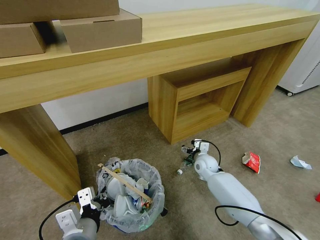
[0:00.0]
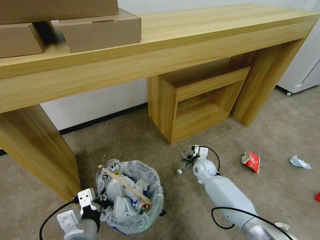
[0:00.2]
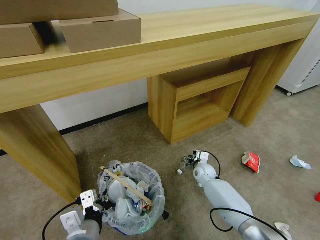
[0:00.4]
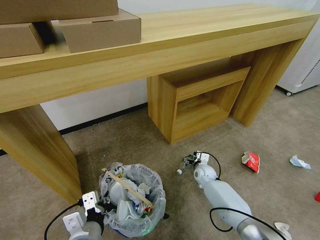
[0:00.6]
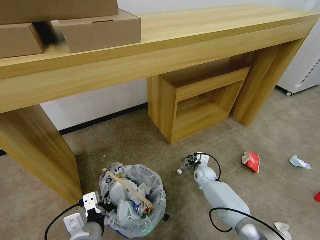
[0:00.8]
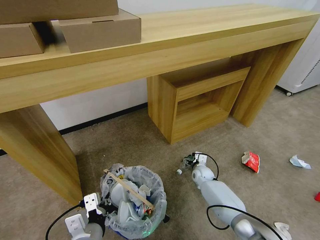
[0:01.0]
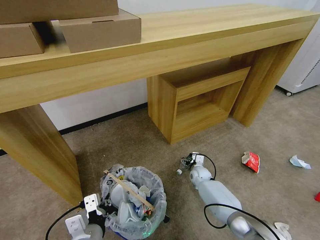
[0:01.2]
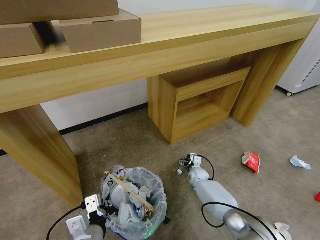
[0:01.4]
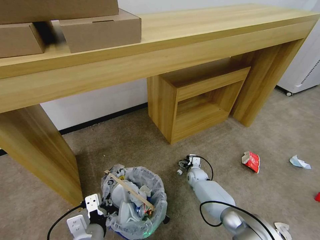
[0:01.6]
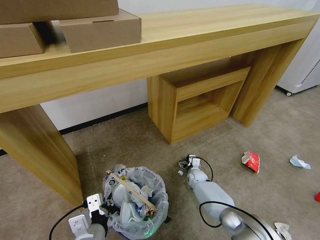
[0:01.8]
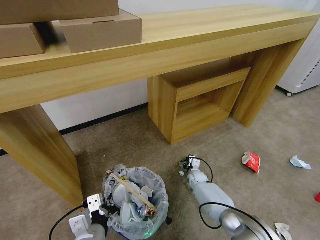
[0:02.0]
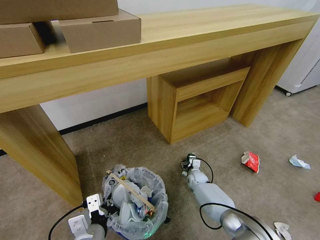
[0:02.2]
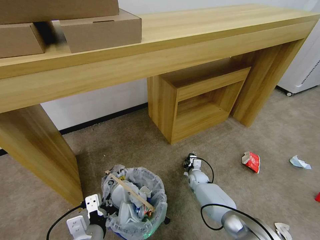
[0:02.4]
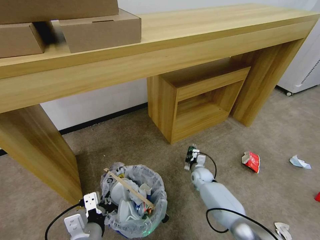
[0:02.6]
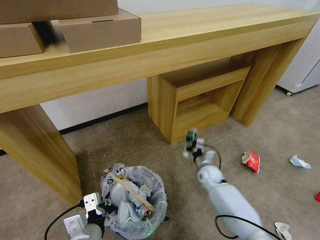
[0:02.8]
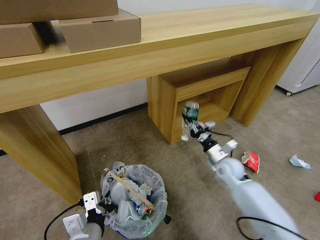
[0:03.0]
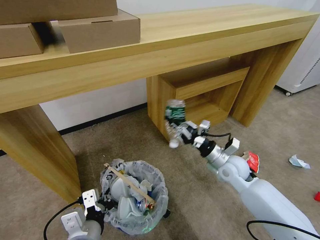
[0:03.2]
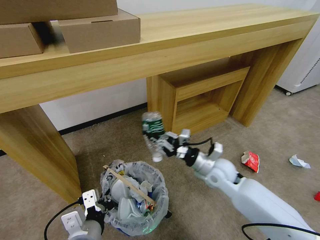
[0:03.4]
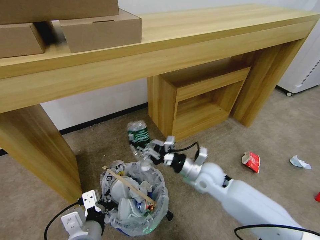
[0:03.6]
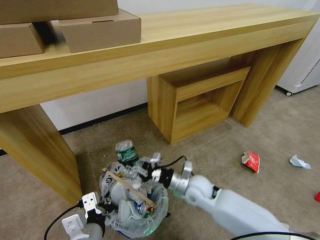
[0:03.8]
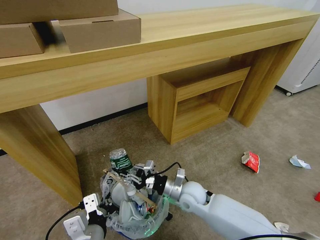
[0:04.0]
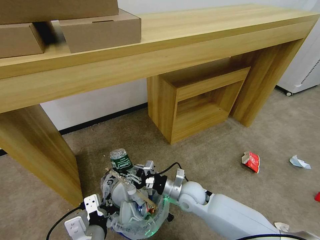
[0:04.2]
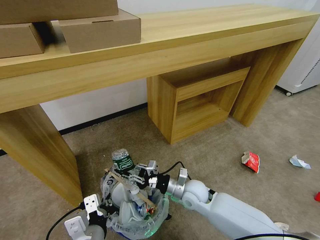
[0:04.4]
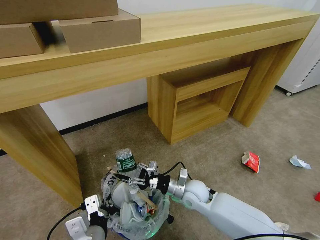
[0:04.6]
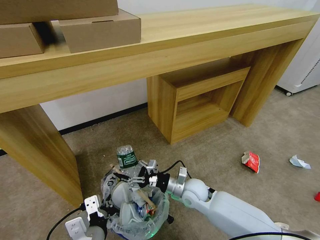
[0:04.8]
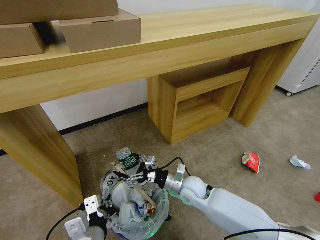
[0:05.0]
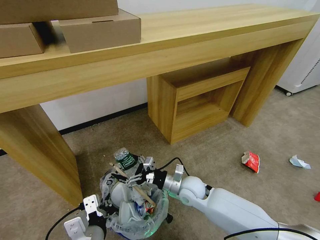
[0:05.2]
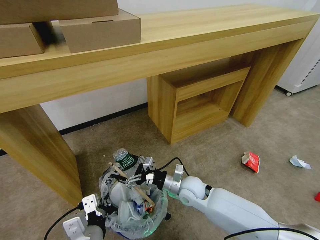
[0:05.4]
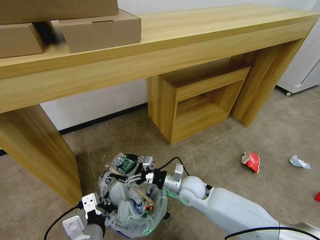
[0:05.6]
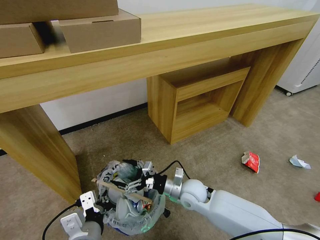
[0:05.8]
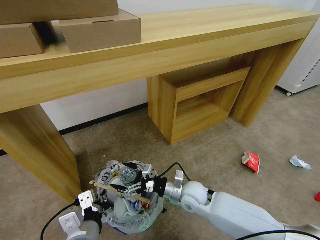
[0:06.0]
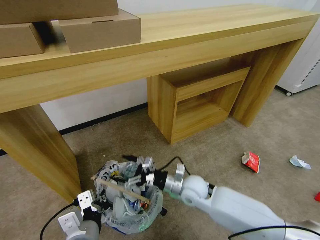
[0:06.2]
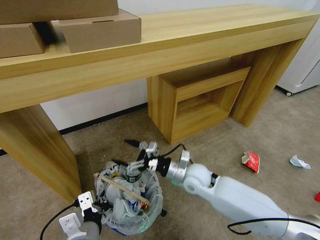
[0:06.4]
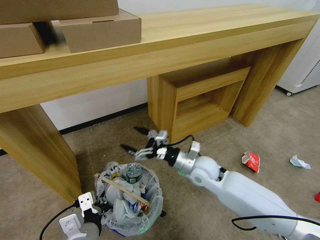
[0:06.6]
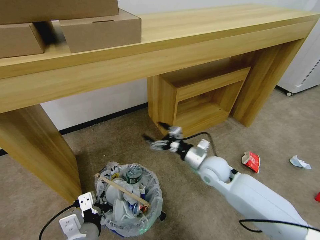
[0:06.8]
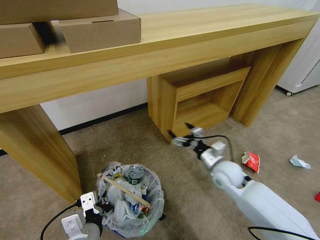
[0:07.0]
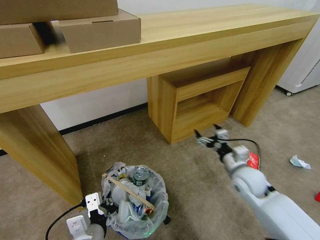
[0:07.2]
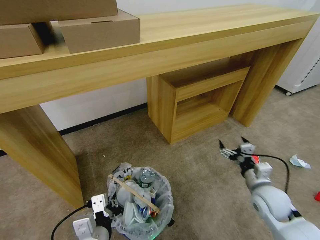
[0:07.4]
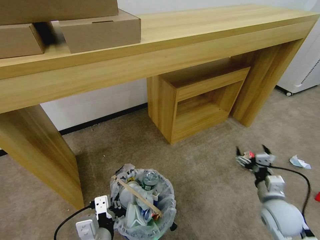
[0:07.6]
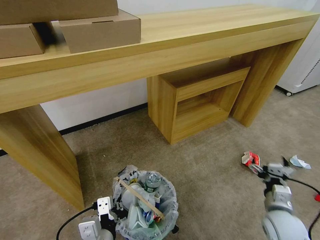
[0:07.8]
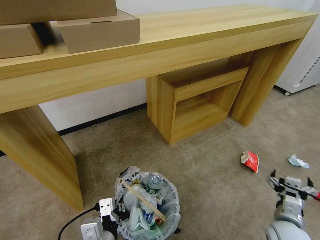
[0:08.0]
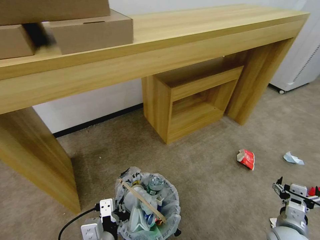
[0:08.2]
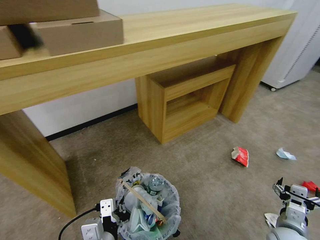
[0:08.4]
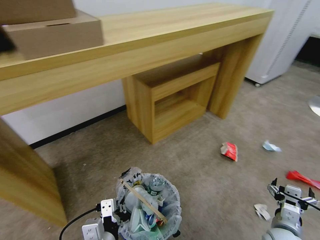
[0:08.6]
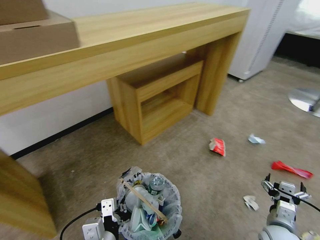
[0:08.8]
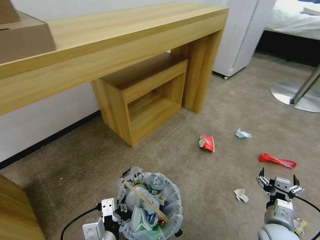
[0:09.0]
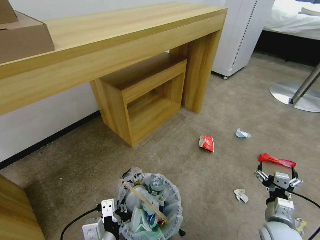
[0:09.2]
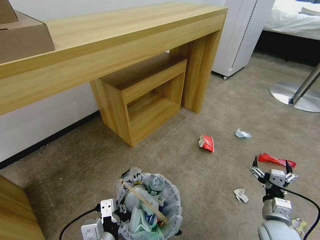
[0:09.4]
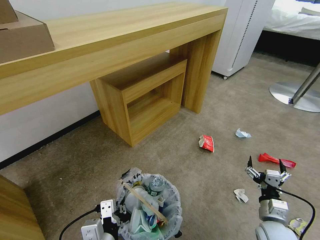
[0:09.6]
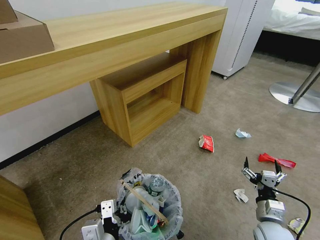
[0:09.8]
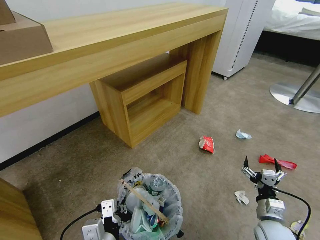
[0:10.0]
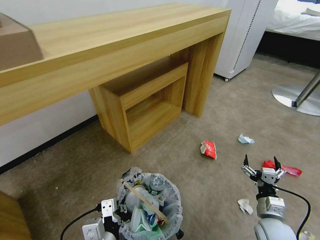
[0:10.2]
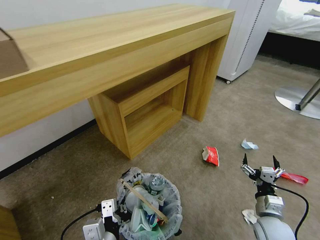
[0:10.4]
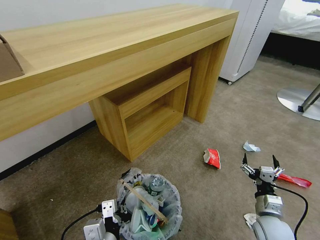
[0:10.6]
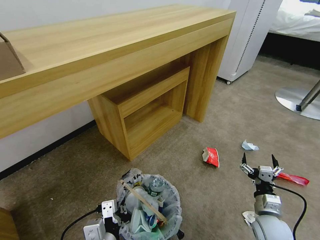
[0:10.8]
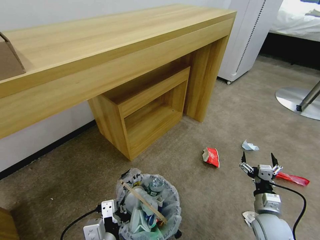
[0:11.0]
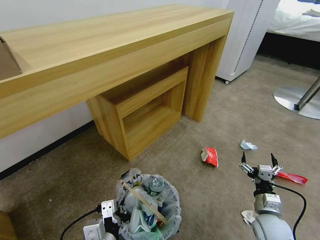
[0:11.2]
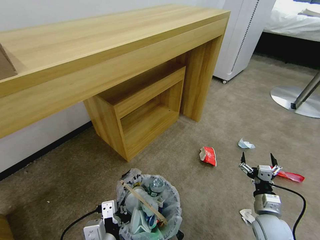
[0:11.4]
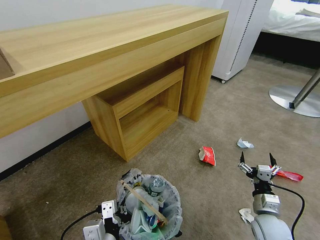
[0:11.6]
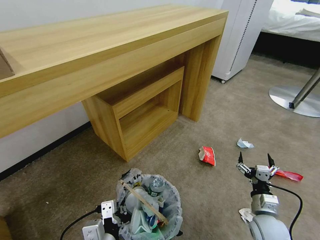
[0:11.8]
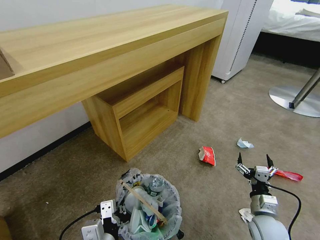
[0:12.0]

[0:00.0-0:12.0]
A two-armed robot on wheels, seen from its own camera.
Task of the whole recording: Pick up the trash bin and place the garbage on the floor into it.
0:00.0 to 0:01.6: The right gripper is displaced downward by some 15 cm.
0:01.6 to 0:03.0: The right gripper is displaced upward by approximately 20 cm, and closes.
0:03.0 to 0:04.4: The right gripper heads to the left and backward, covering roughly 15 cm.
0:04.4 to 0:06.0: The right gripper opens.
0:06.0 to 0:07.6: The right gripper heads to the right, covering roughly 25 cm.
0:07.6 to 0:09.0: The right gripper travels backward by roughly 5 cm.
0:10.4 to 0:12.0: The two grippers keep their place.

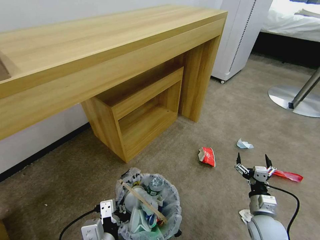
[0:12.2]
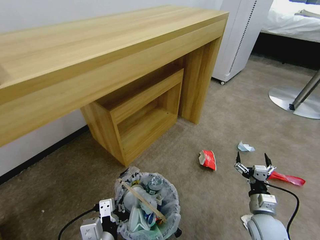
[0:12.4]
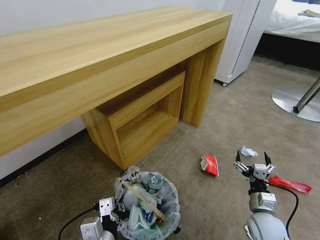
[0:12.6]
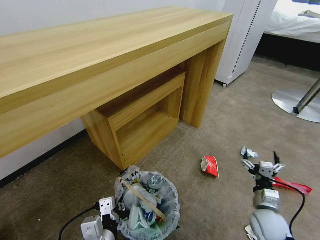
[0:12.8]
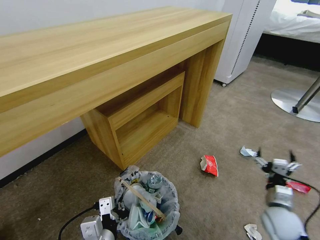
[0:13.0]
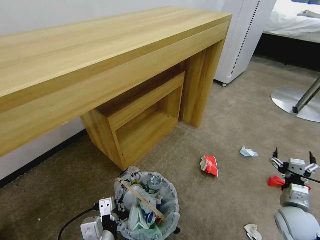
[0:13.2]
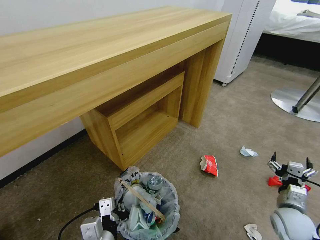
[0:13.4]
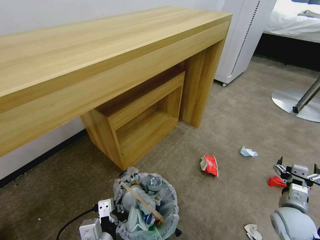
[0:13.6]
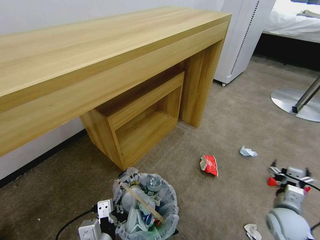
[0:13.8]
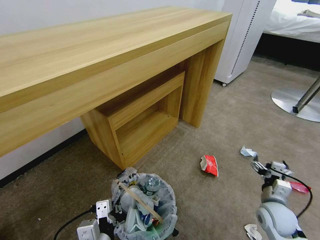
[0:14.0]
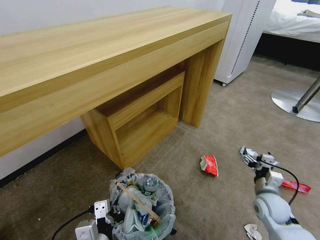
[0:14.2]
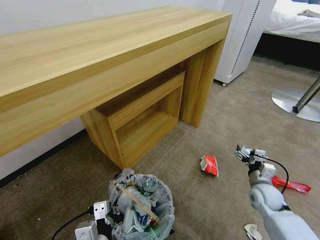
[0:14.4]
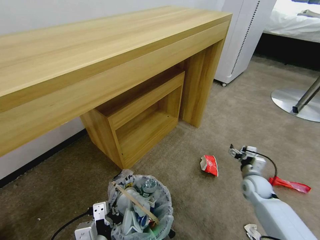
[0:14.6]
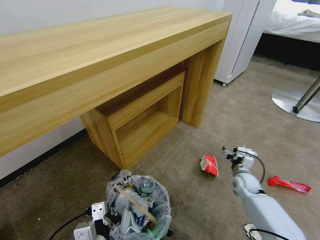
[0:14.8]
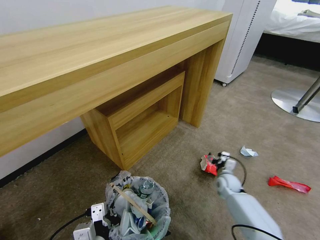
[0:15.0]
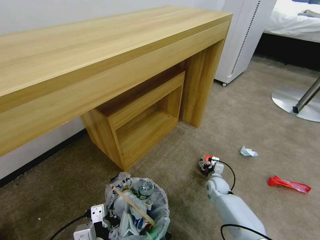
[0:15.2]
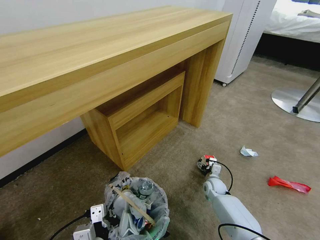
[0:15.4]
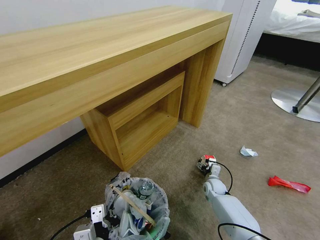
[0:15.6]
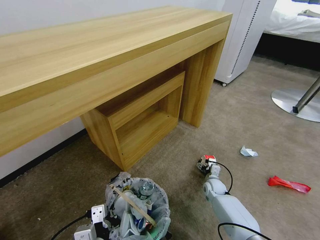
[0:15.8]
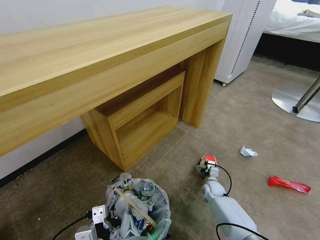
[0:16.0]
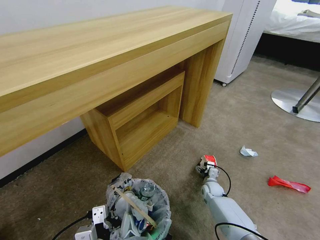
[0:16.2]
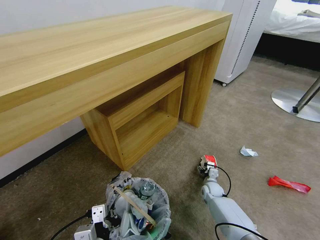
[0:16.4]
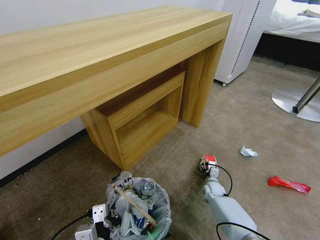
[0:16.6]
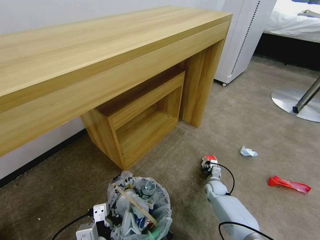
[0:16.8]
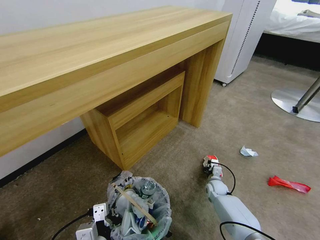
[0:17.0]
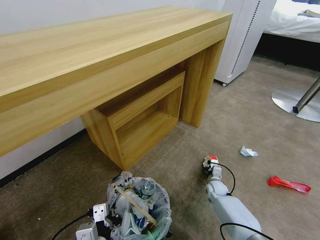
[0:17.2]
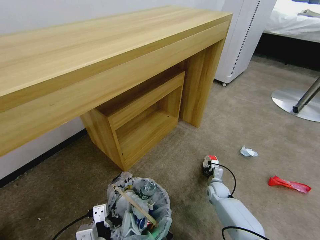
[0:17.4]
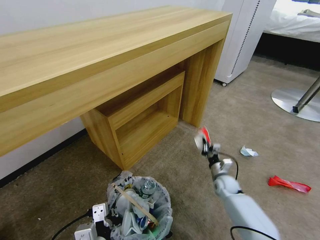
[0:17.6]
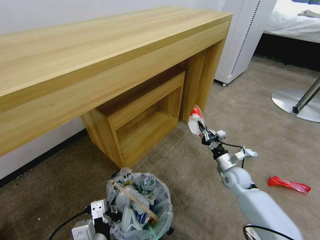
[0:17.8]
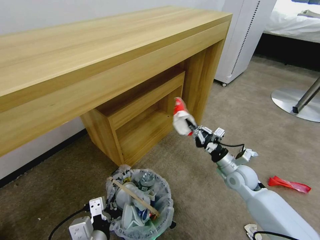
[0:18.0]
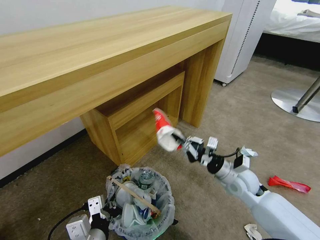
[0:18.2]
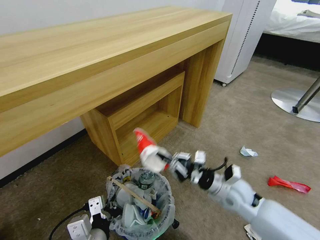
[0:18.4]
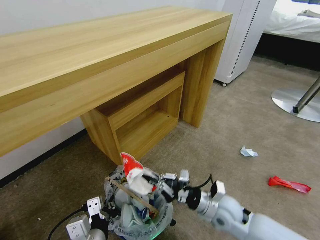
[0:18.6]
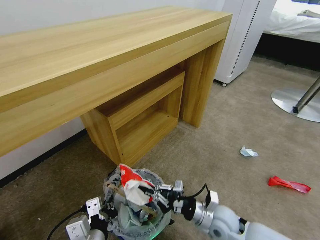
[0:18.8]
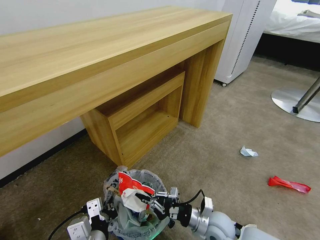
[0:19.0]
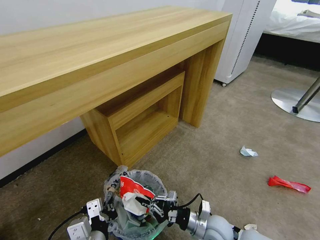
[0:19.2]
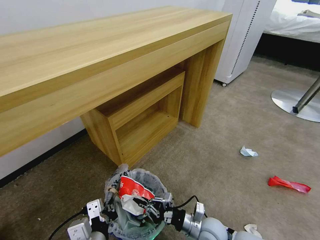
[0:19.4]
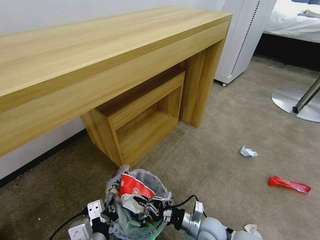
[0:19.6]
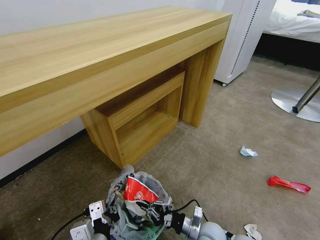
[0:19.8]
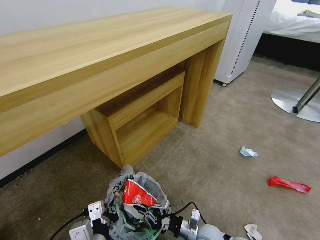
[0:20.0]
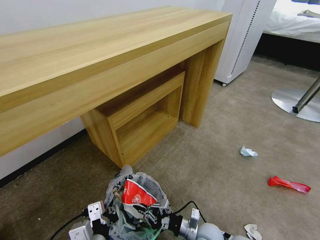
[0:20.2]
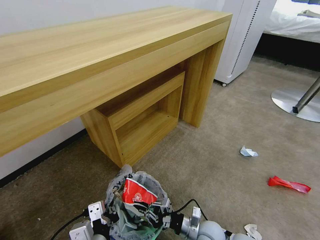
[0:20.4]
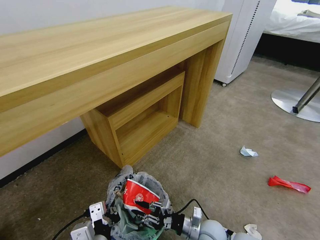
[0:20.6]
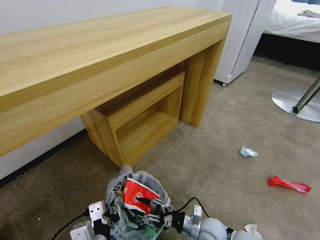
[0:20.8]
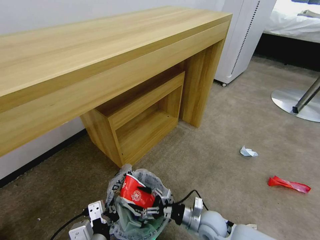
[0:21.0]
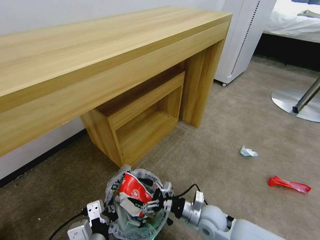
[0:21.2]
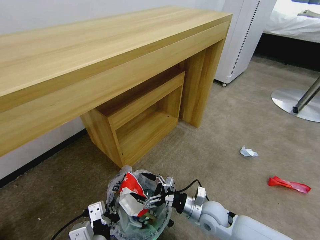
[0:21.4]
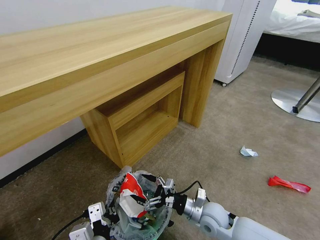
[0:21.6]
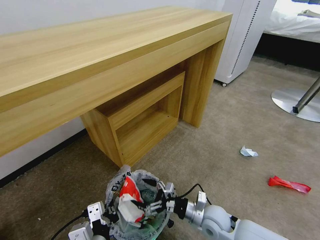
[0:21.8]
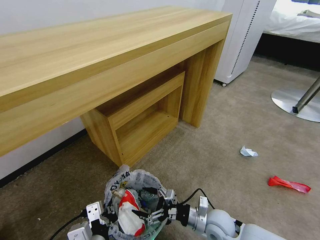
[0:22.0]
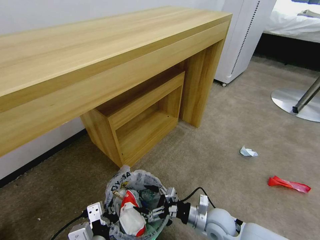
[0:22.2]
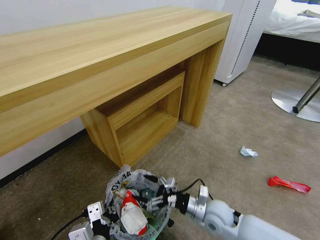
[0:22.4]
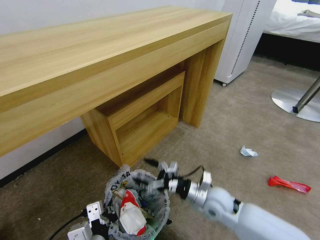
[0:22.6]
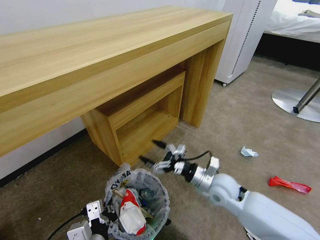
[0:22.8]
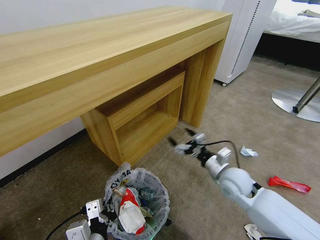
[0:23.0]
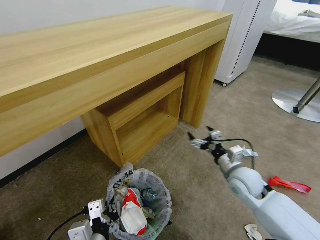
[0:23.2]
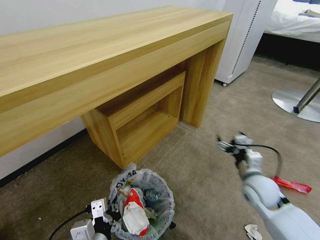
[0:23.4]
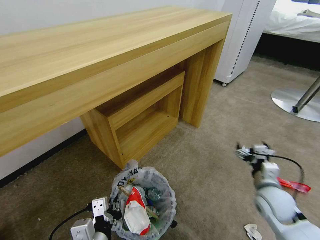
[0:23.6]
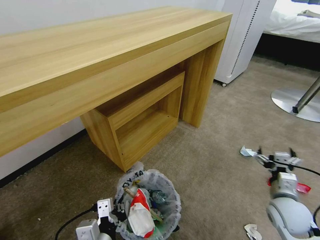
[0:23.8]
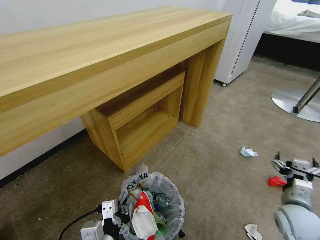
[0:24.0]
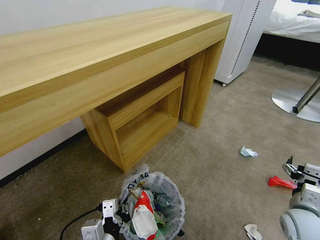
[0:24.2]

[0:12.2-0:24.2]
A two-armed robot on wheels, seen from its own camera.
Task of the whole recording: Pick up the trash bin and place the garbage on the floor into it.
0:12.2 to 0:13.8: The right gripper shifts roughly 5 cm to the right.
0:13.8 to 0:15.2: The right gripper shifts roughly 25 cm forward, downward and to the left.
0:15.2 to 0:16.6: The right gripper closes up.
0:16.6 to 0:18.2: The right gripper shifts roughly 25 cm upward, and closes its fingers.
0:18.2 to 0:19.8: The right gripper moves downward, backward and to the left, about 20 cm.
0:19.8 to 0:21.2: The right gripper moves some 5 cm, and opens its fingers.
0:21.2 to 0:22.6: The right gripper goes some 5 cm upward.
0:22.6 to 0:24.2: The right gripper is displaced to the right by approximately 20 cm.
